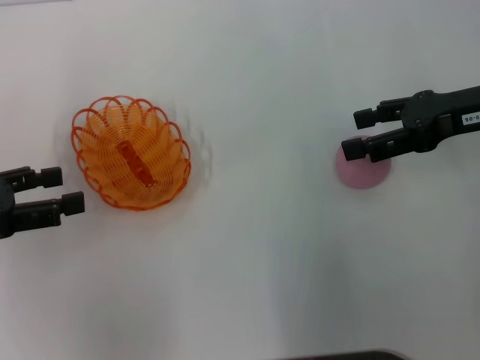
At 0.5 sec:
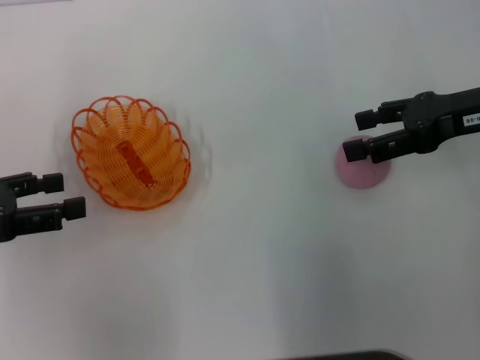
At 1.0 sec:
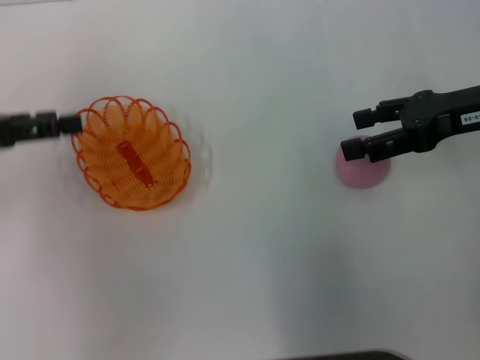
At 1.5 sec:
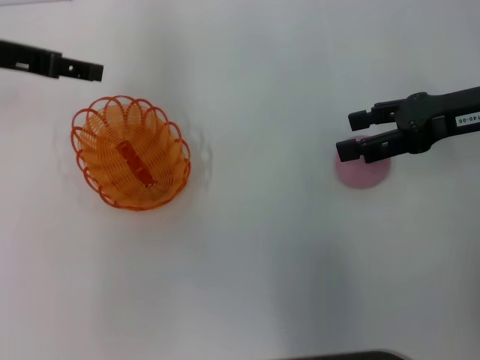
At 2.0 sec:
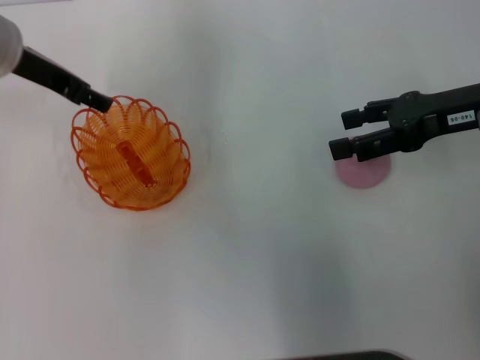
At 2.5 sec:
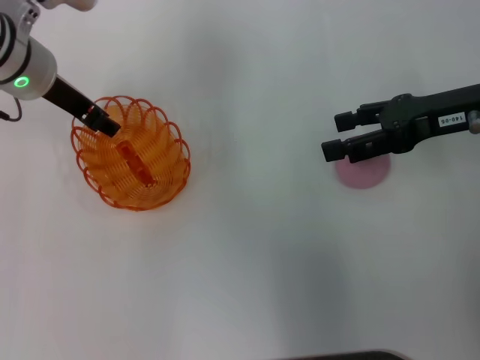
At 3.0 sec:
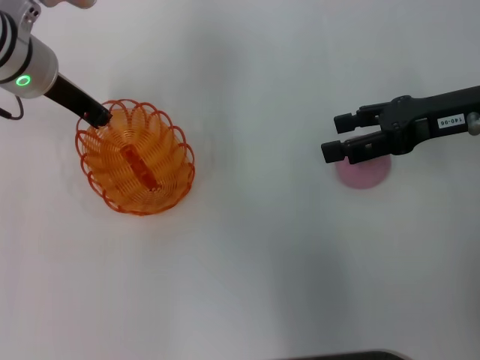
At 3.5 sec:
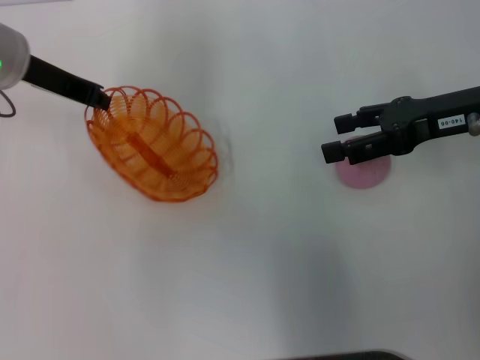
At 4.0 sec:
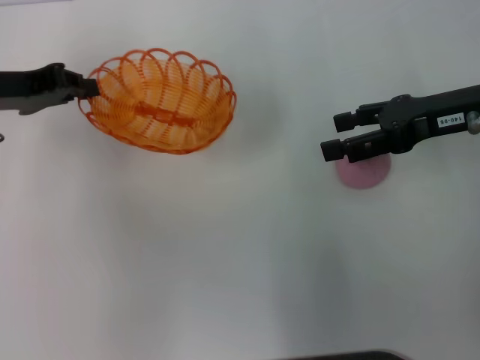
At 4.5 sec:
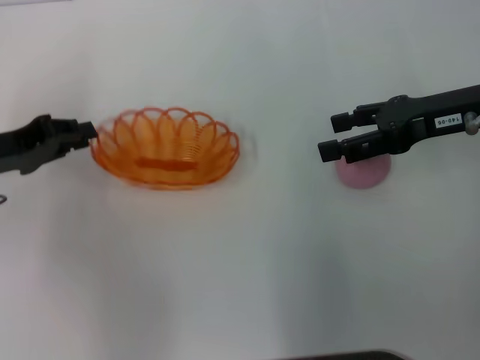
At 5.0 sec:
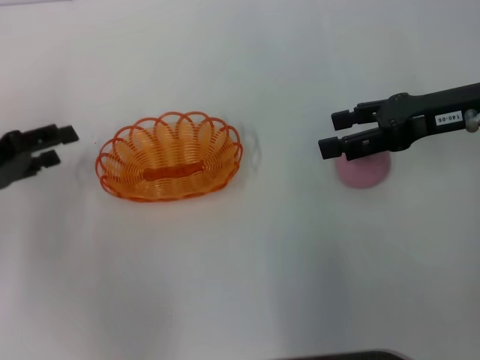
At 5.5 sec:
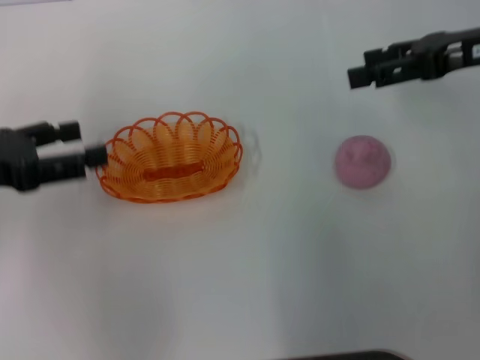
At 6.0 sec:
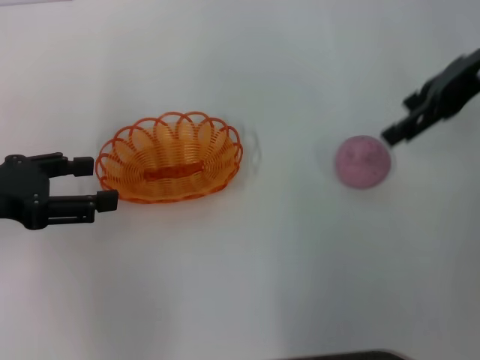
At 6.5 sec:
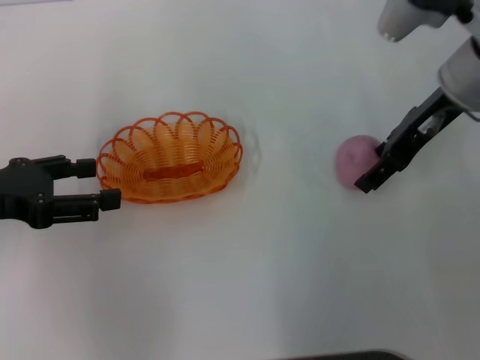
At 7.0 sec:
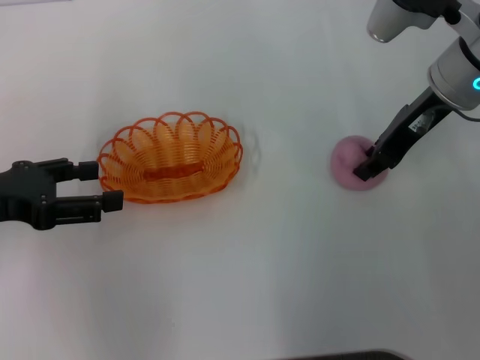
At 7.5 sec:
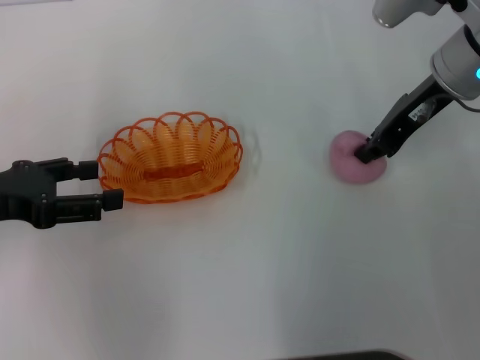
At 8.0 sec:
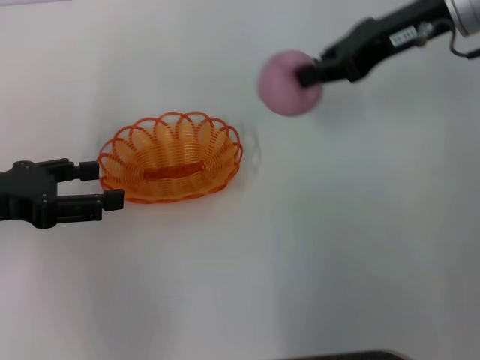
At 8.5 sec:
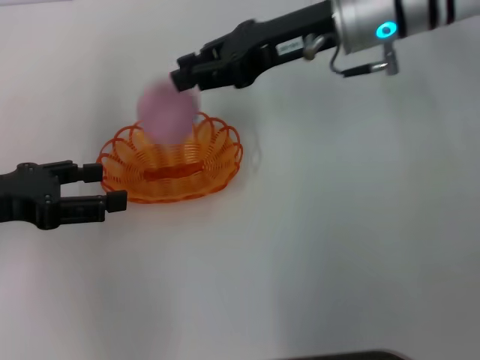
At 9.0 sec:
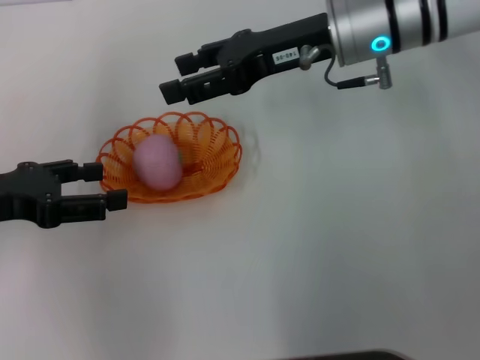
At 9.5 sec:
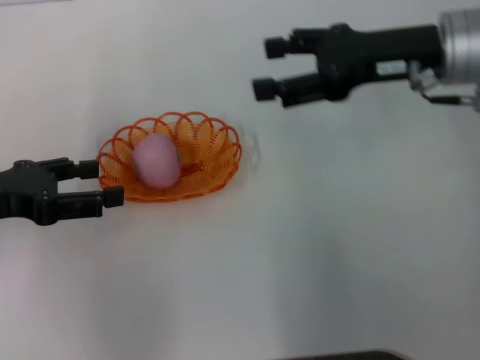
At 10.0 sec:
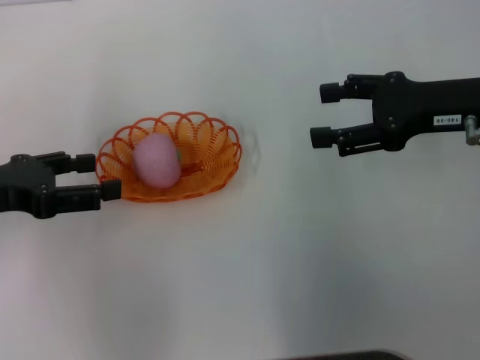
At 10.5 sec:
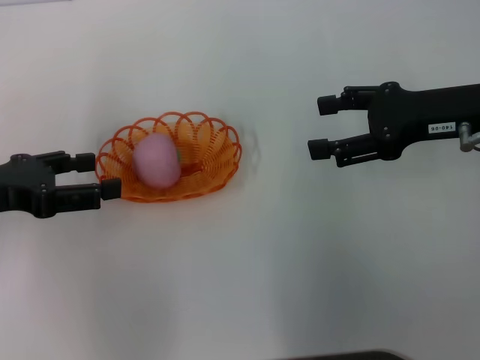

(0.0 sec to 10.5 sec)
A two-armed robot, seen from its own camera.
Step, 0.0 sec - 3.5 sec: Pick up the basket with the left gripper.
Step, 4.0 sec - 5.0 sec: Place the basket in the center of view with the left gripper.
Step, 5.5 sec - 8.0 sec: Pick up the peach with the right gripper.
Step, 8.5 sec - 9.0 sec: Place the peach into the basket with the right gripper.
0.0 sec - 2.0 sec: The left gripper goes some 20 cm forward and to the right.
2.0 sec - 4.0 sec: The left gripper travels to the left by roughly 5 cm, and closes its fingers.
4.0 sec - 6.5 sec: The left gripper is displaced backward by about 10 cm, and opens its fingers; the right gripper travels to the left by approximately 5 cm.
6.5 sec - 8.5 sec: The right gripper travels to the left by some 10 cm, and closes its fingers.
8.5 sec - 10.5 sec: The right gripper is displaced to the right and backward by approximately 15 cm, and opens up.

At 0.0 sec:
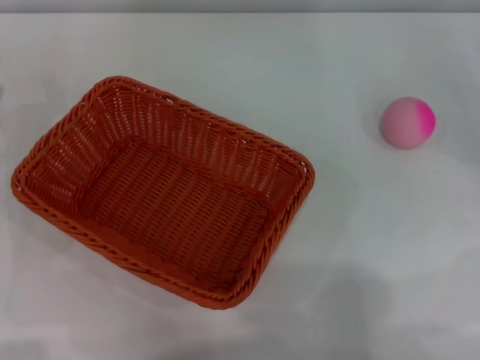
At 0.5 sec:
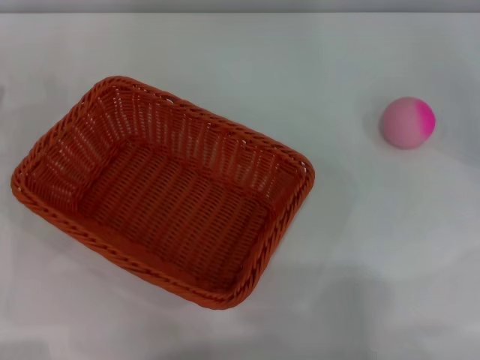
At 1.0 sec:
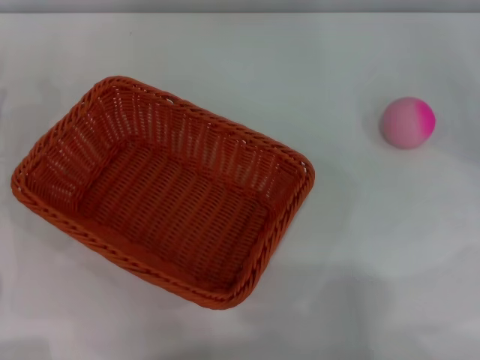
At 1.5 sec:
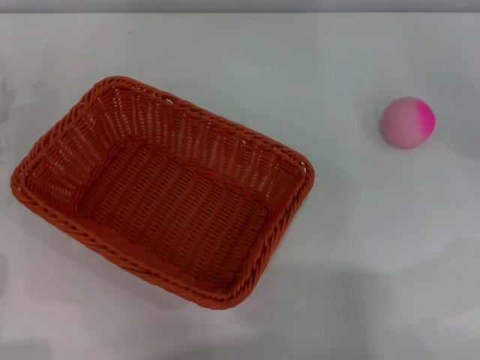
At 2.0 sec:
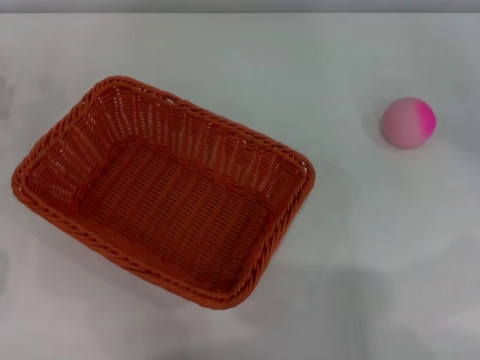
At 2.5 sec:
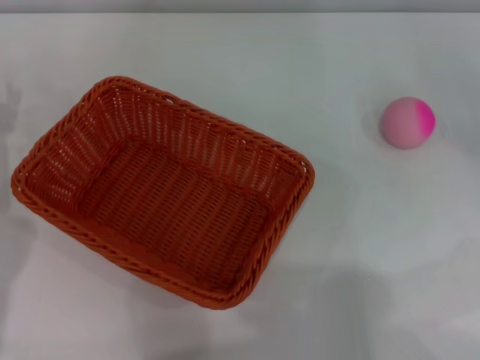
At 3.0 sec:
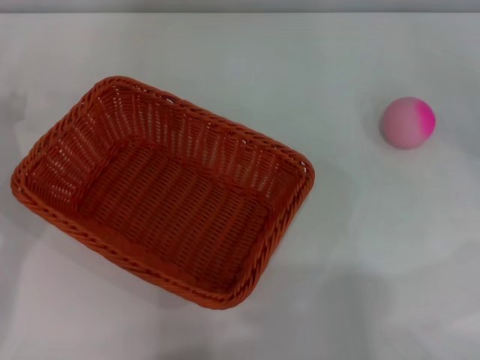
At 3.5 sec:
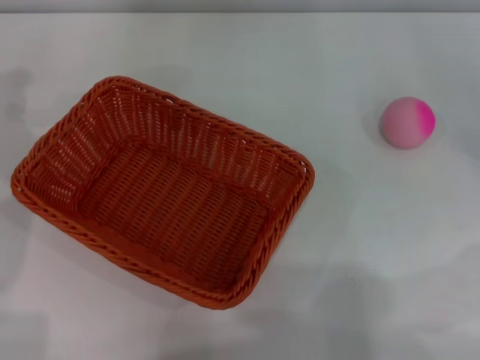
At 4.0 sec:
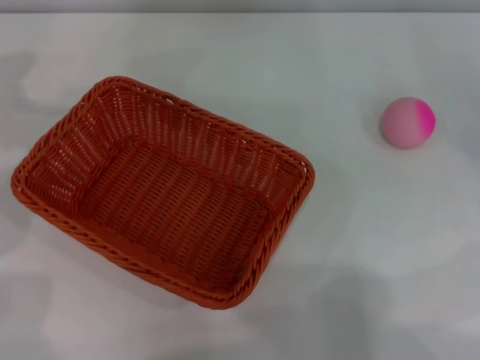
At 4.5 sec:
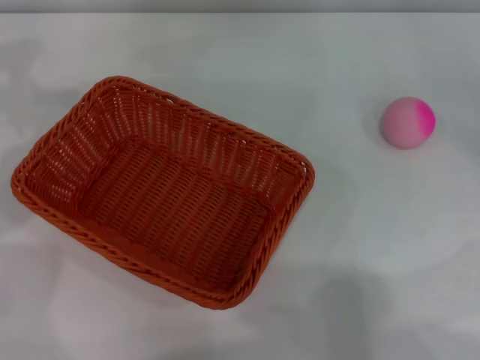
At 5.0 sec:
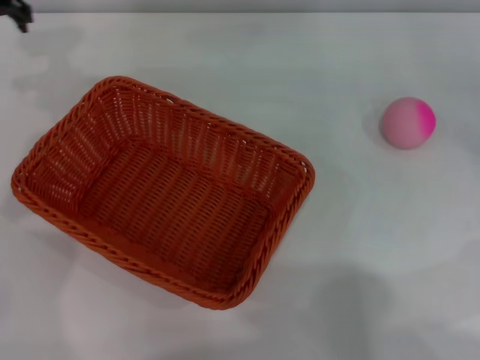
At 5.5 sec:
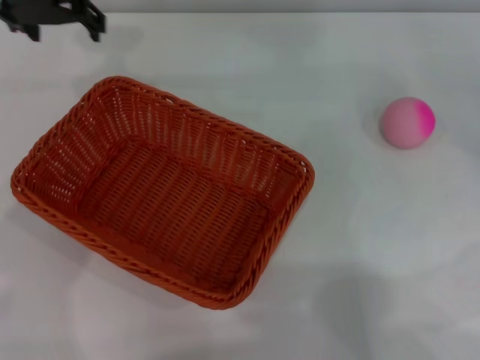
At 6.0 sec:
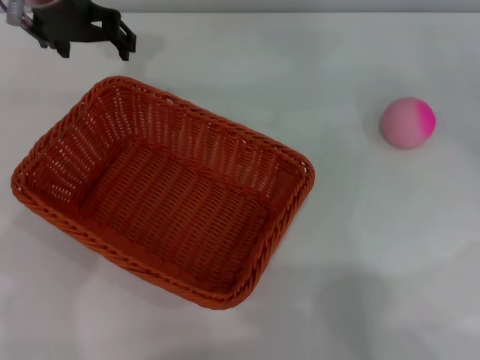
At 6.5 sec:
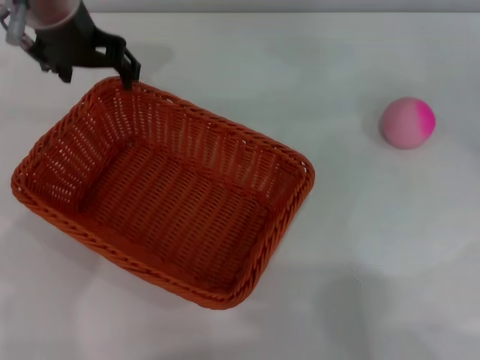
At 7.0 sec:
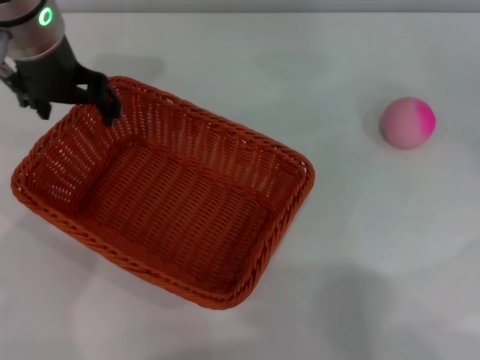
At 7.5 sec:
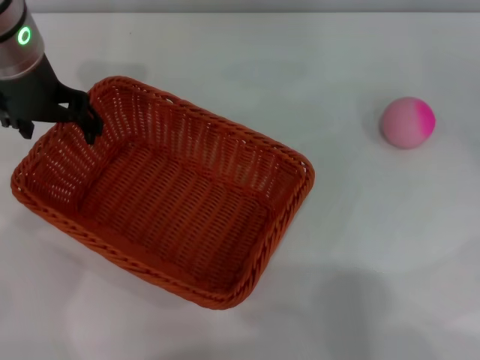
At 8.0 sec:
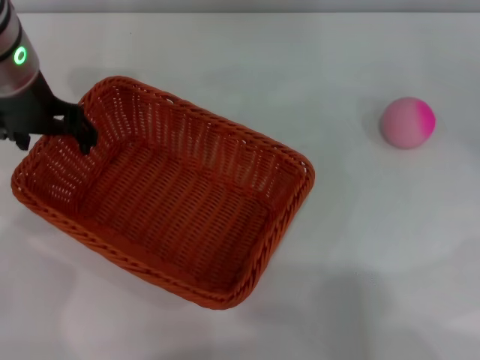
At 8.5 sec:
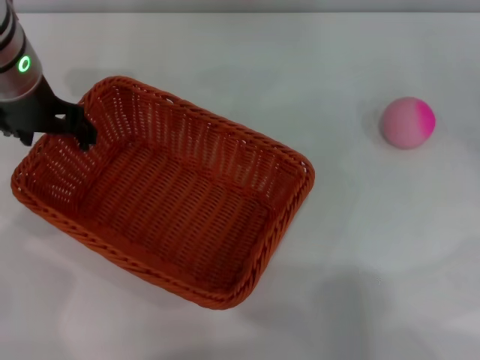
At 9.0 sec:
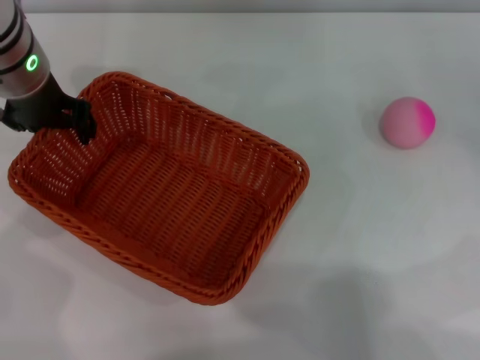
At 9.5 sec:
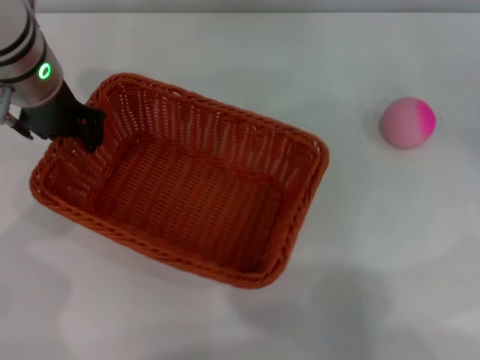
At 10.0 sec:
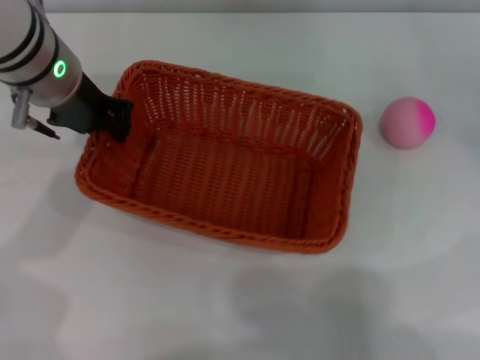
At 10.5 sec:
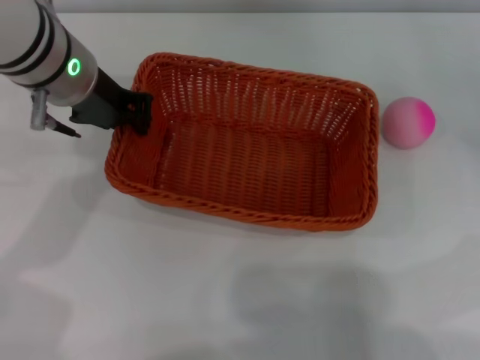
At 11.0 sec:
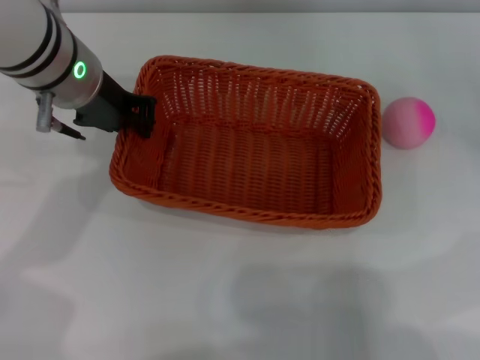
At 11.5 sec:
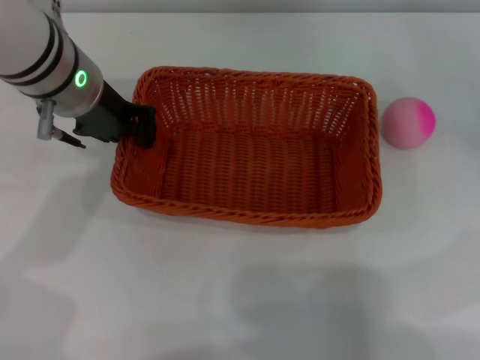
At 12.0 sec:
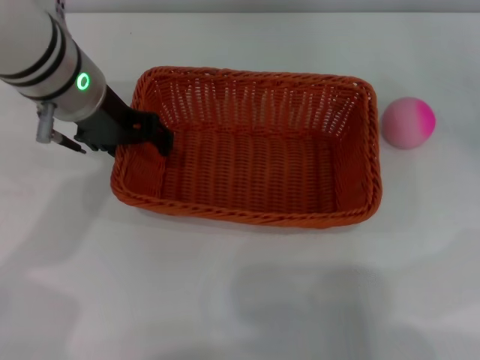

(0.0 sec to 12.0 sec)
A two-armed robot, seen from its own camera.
Step, 0.0 sec - 9.0 sec: Pick up the light basket with the left gripper.
4.0 sec - 6.0 sec: The left gripper heads to the right, covering approximately 15 cm.
6.0 sec - 8.0 sec: The left gripper moves about 5 cm.
8.0 sec - 10.0 sec: The left gripper closes its fingers.
10.0 sec - 12.0 sec: The left gripper opens.

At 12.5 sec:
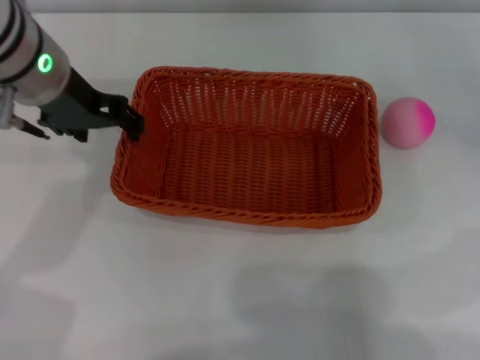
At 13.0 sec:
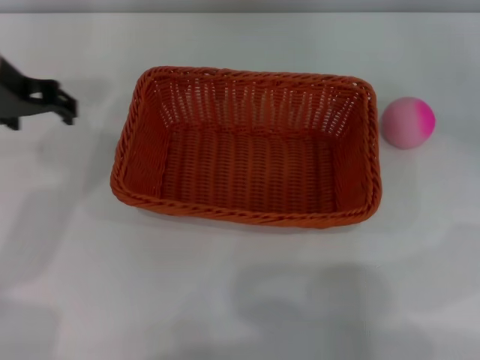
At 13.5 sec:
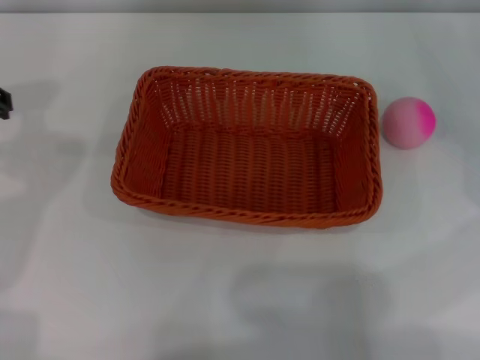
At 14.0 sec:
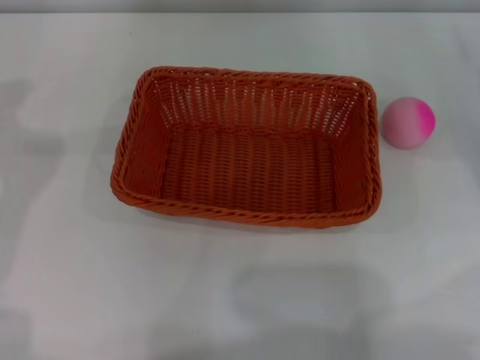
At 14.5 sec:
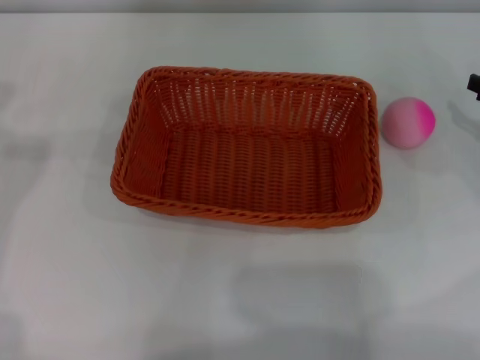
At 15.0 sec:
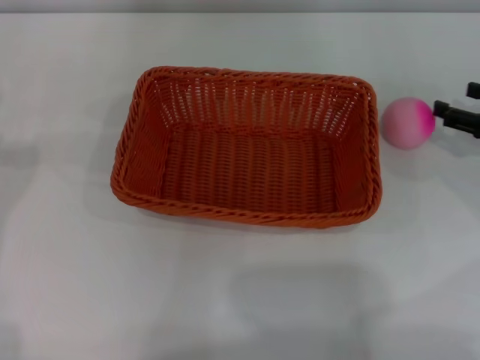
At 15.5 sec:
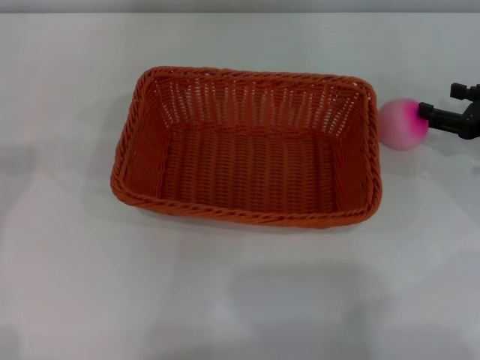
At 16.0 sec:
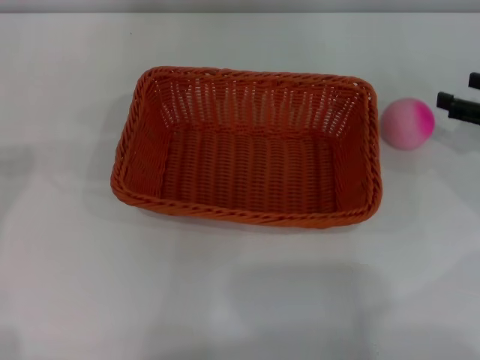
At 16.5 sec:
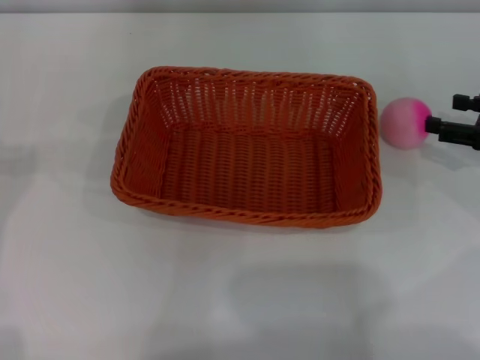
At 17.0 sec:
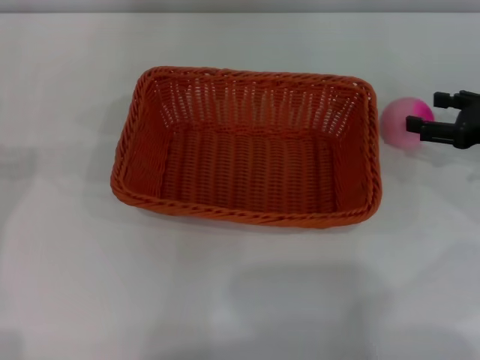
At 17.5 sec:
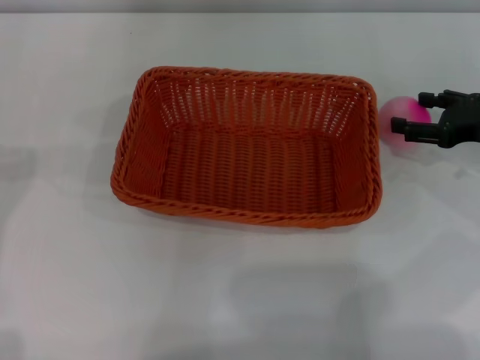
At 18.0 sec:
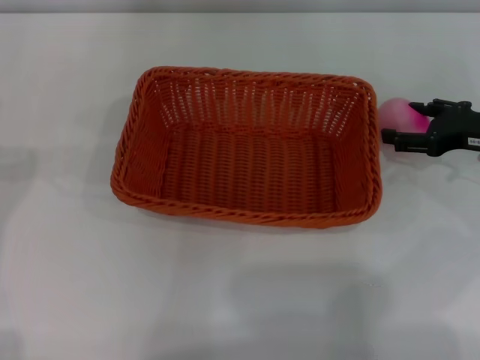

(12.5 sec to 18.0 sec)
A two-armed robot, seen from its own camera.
12.5 sec - 14.5 sec: The left gripper is displaced to the left by about 15 cm.
16.0 sec - 18.0 sec: The right gripper changes place by roughly 5 cm.
